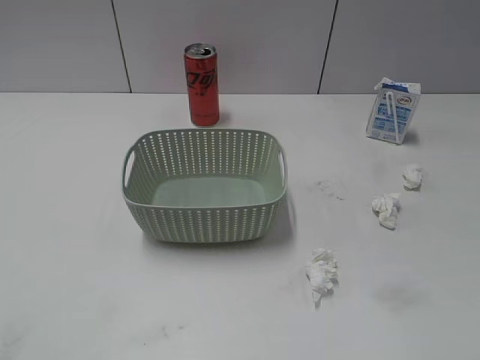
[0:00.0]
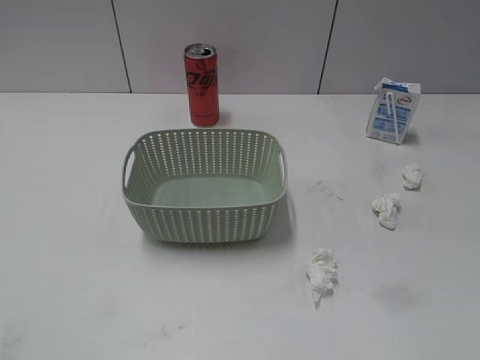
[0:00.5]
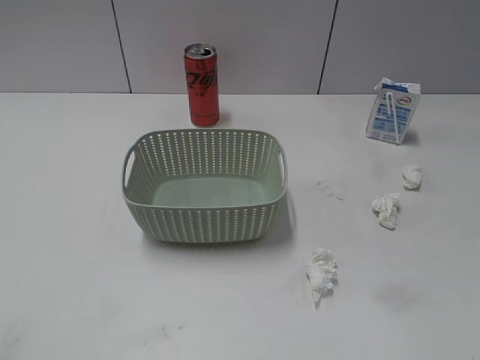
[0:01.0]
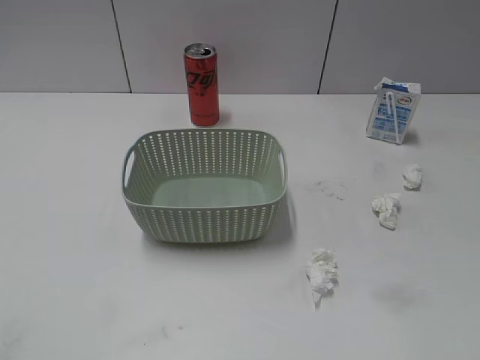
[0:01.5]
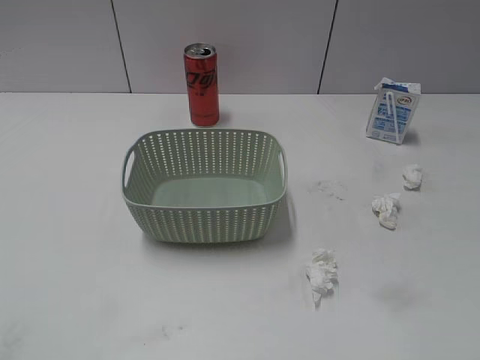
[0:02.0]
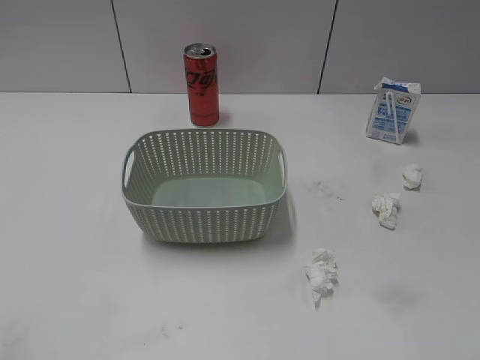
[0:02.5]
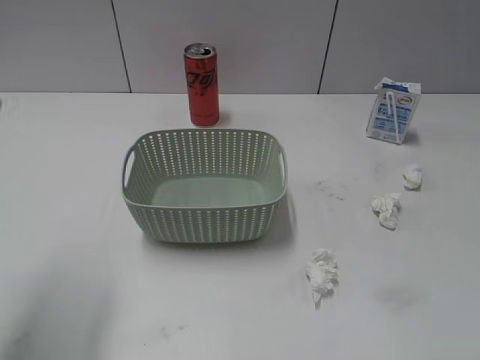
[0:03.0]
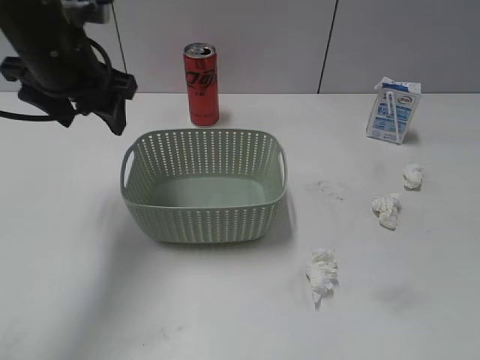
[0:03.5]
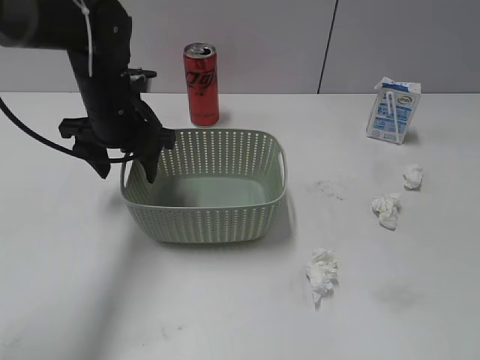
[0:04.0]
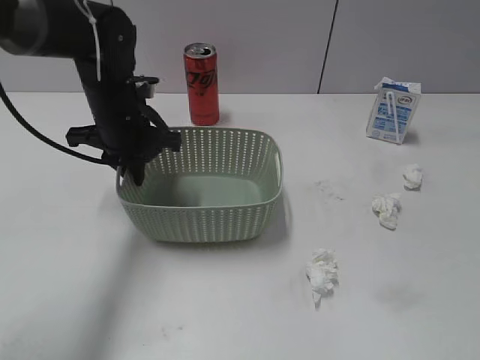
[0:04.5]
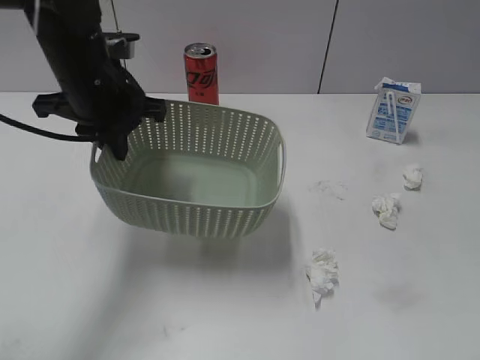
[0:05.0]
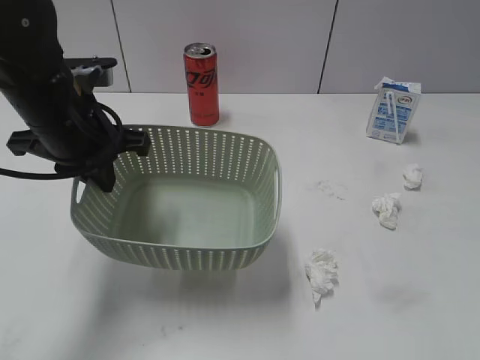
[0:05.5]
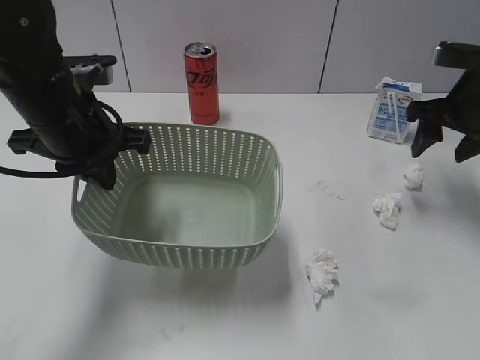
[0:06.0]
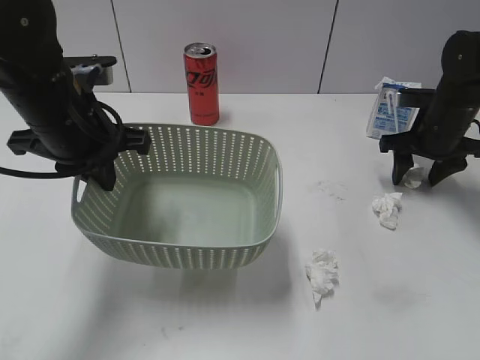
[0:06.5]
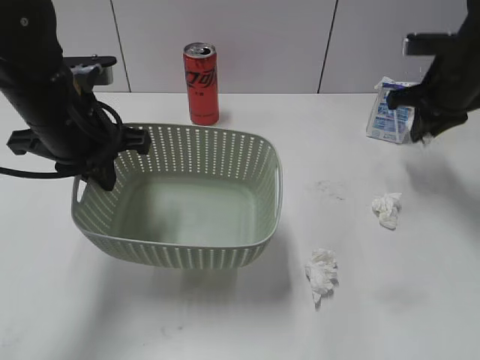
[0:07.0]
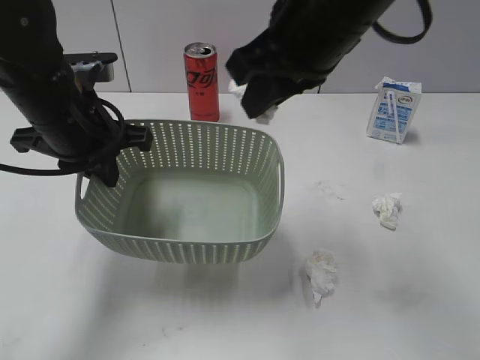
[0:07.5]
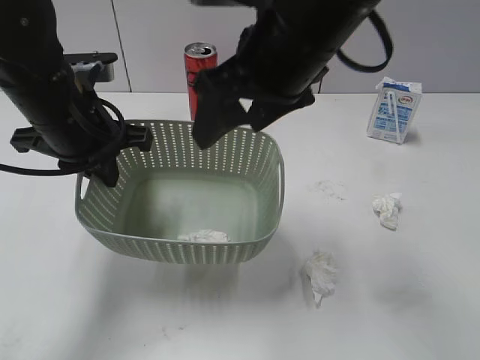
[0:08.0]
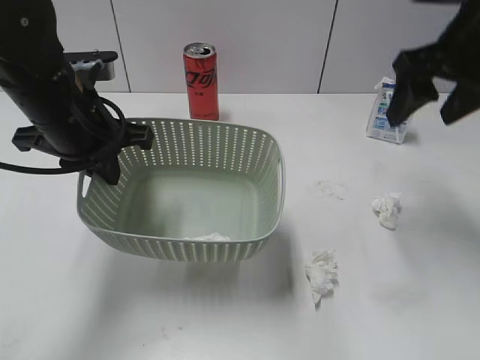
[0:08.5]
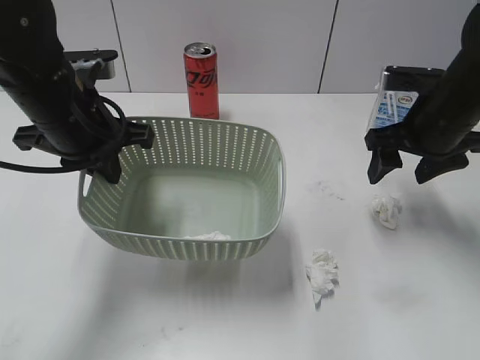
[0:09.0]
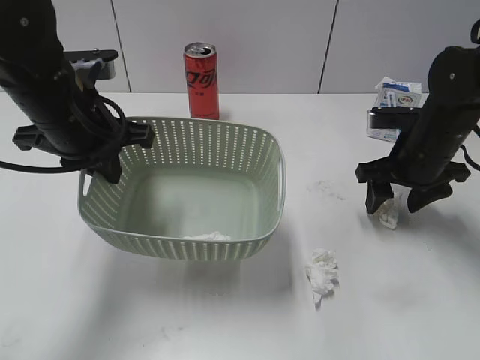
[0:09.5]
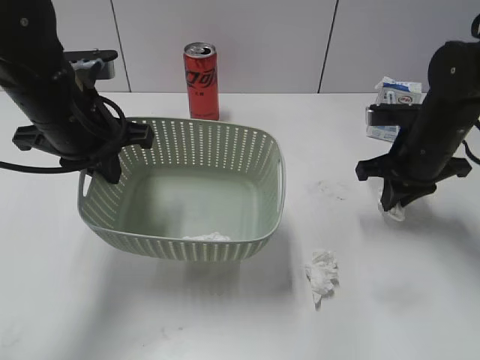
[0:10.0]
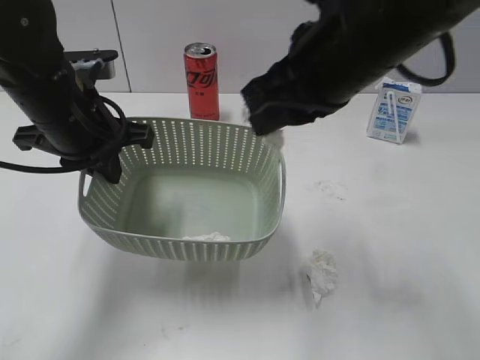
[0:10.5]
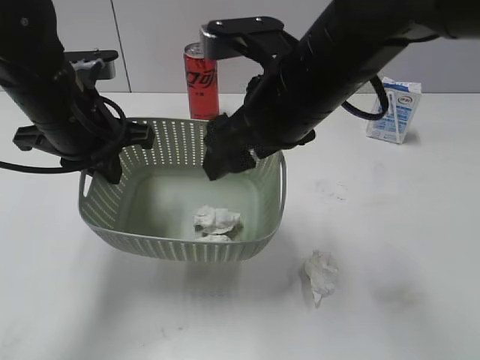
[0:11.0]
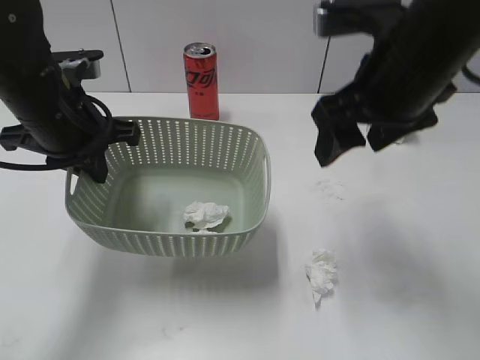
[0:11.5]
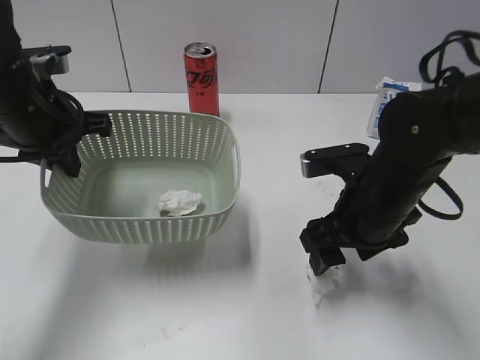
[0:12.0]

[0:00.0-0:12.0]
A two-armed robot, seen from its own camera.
Step, 0:03.0 to 0:04.5: Grasp the basket with left gripper.
Step, 0:05.5 to 0:06.5: Grasp the waste paper with right gripper.
Step, 0:07.0 to 0:08.0: Place the waste paper in the basket with right gripper.
Step, 0:08.5 to 0:09.5: Grasp the waste paper with right gripper.
Step, 0:10.0 to 0:11.0: Place the waste paper in the basket with right gripper.
0:02.0 to 0:04.0: The left gripper is displaced forward and to the right by roughly 40 cm.
0:04.0 to 0:06.0: The right gripper moves forward, roughly 40 cm; the left gripper moves backward, about 10 cm, and closes.
0:06.0 to 0:08.0: The right gripper moves to the left, upward and backward, roughly 25 cm, and closes, then reopens.
0:08.0 to 0:10.0: The right gripper heads to the right, downward and forward, covering roughly 25 cm, and closes its fingers.
0:10.0 to 0:12.0: The right gripper moves backward and to the left, approximately 10 cm, and opens up.

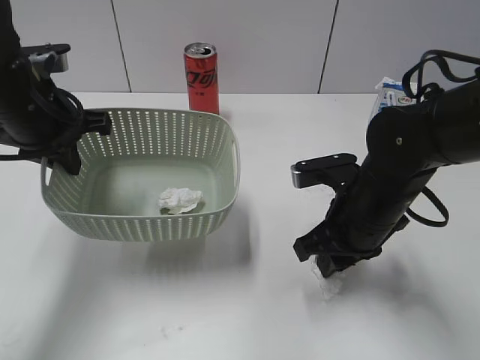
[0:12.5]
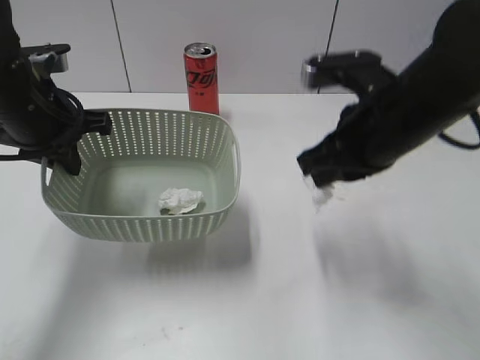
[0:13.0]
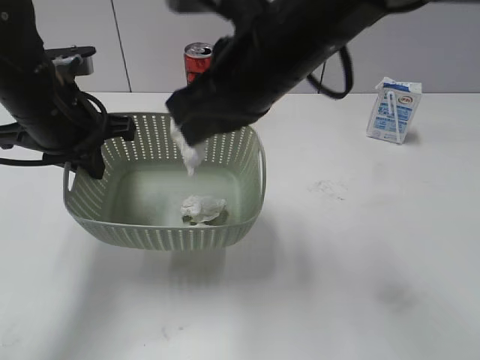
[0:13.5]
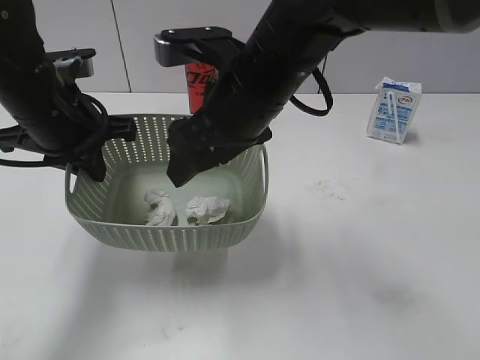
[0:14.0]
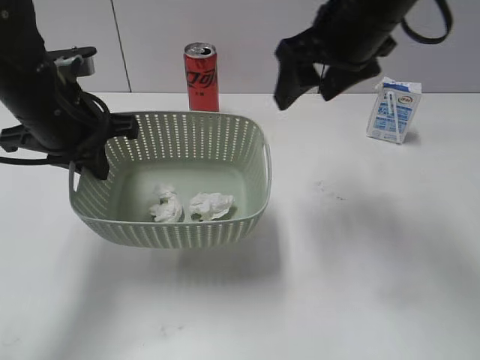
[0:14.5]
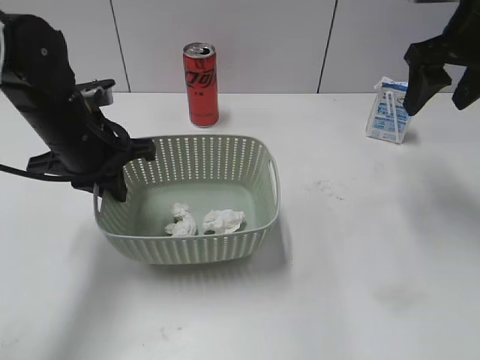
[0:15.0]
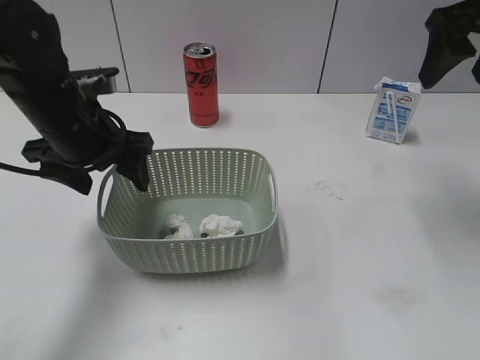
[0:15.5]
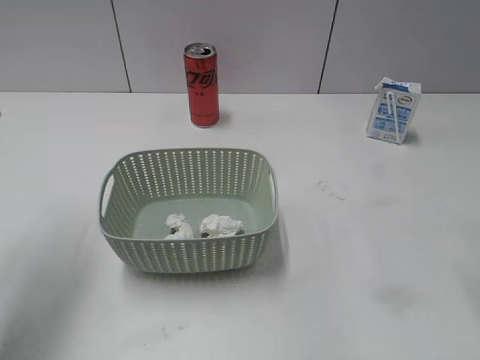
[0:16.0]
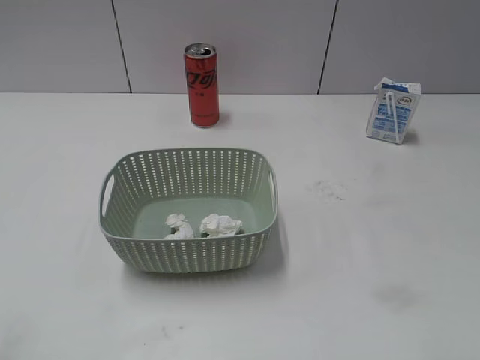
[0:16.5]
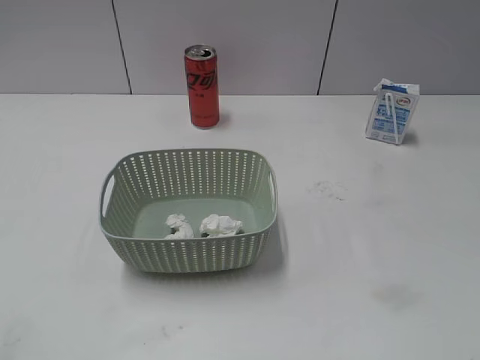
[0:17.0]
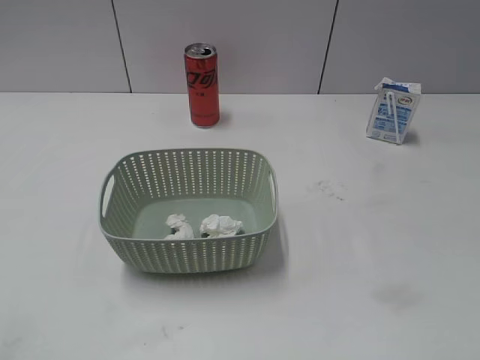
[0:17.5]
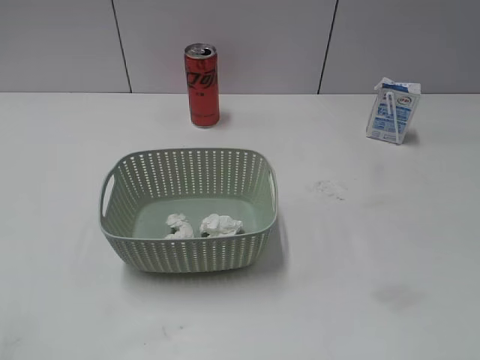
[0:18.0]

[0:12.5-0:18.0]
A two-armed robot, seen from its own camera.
Step, 0:13.0 to 0:14.0: Place the waste paper in the basket with right gripper.
Step, 0:14.5 to 0:15.5: Place the basket on the table with left gripper.
0:12.5 to 0:14.5: The right gripper shifts some 20 cm upward and forward, and opens.
0:14.5 to 0:16.0: The left gripper goes approximately 15 cm upward, to the left and backward, and opens up. Meanwhile the right gripper shifts roughly 20 cm to the right and backward.
0:16.0 to 0:18.0: The left gripper travels backward by some 25 cm.
